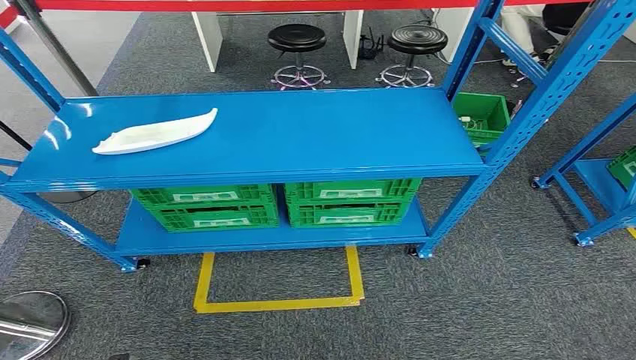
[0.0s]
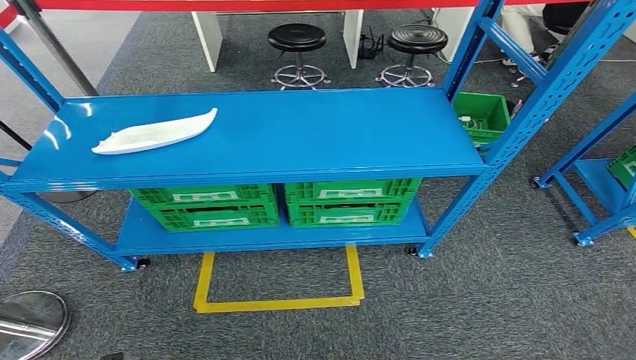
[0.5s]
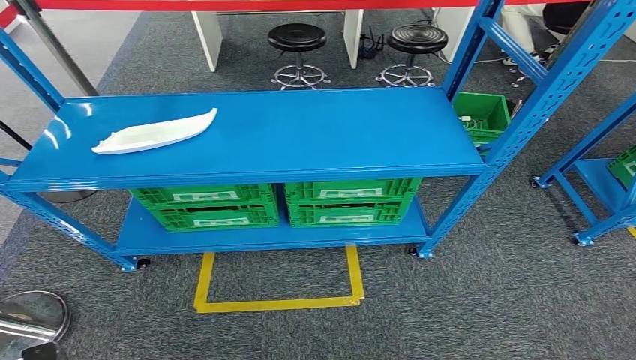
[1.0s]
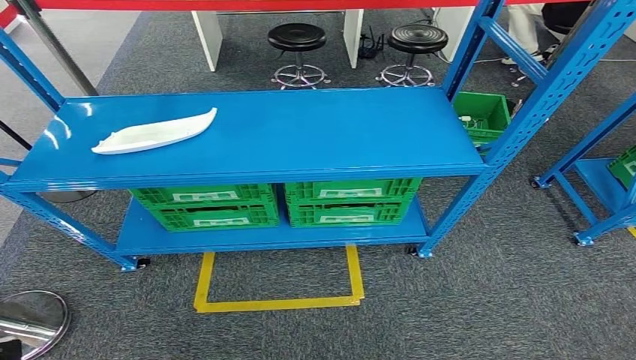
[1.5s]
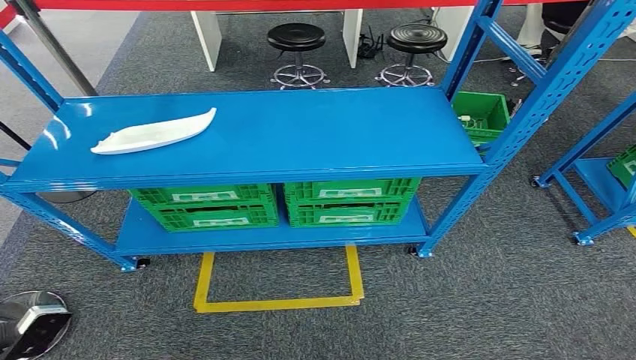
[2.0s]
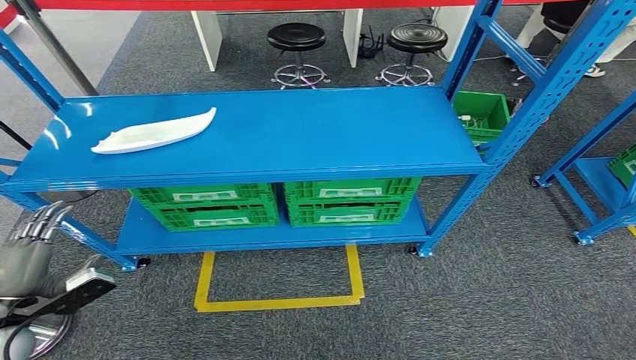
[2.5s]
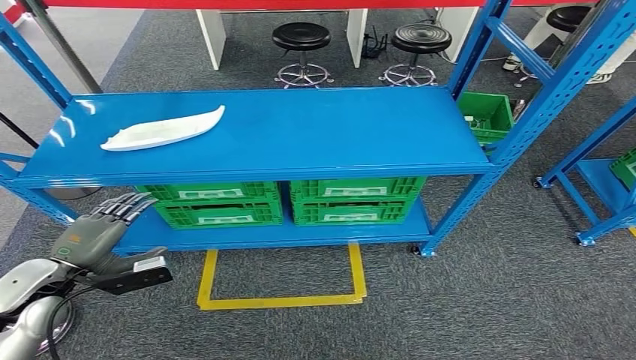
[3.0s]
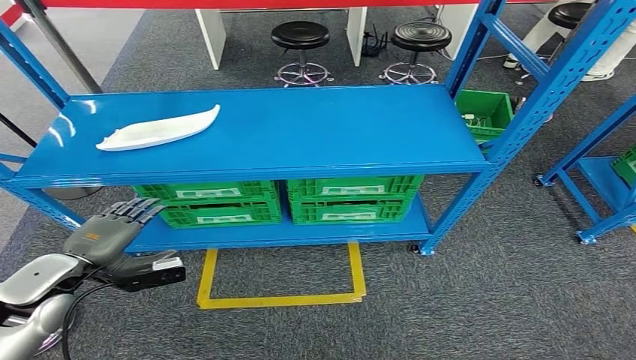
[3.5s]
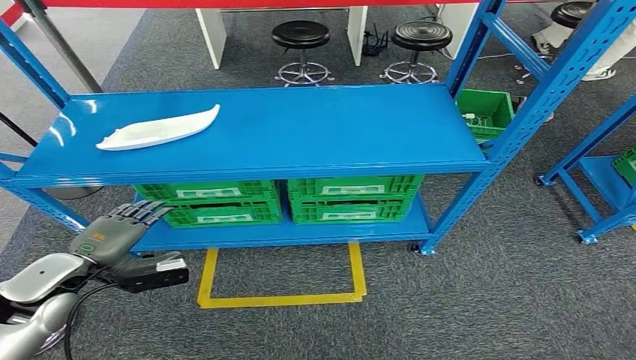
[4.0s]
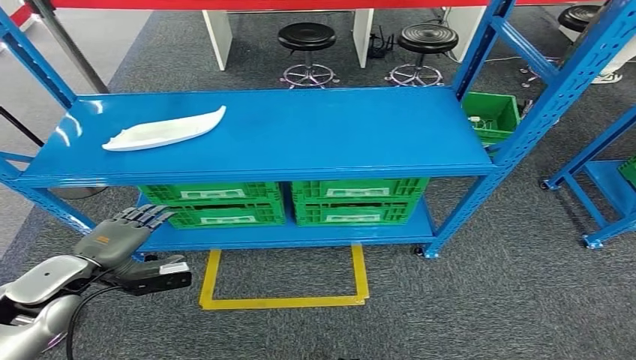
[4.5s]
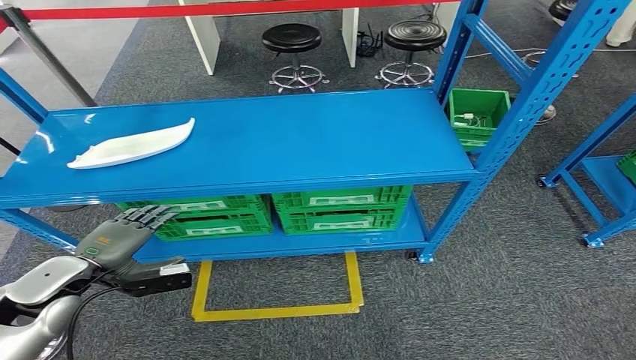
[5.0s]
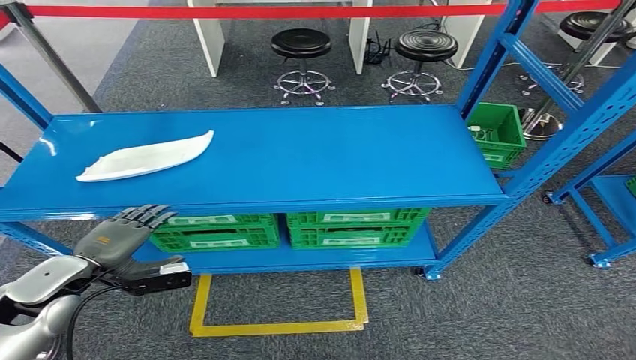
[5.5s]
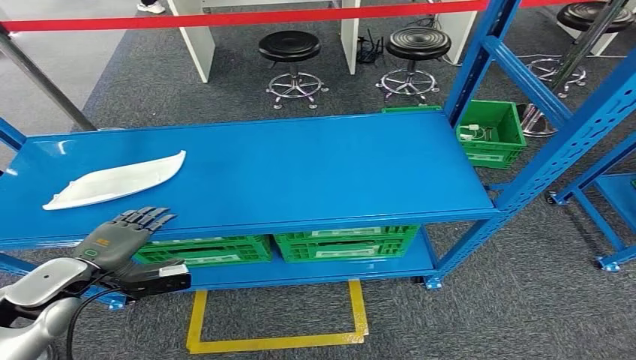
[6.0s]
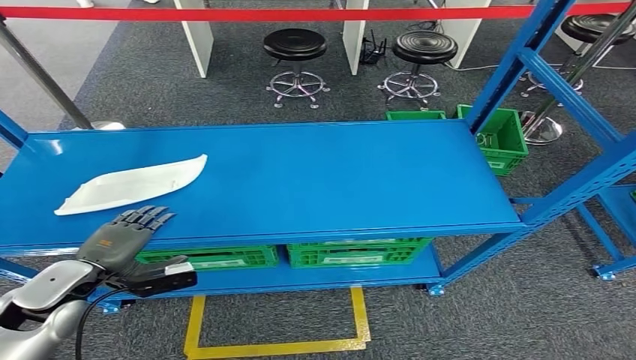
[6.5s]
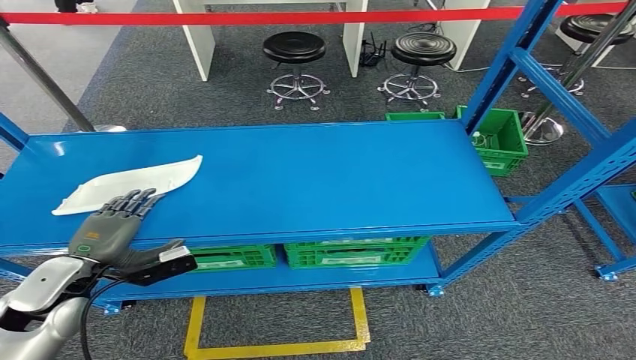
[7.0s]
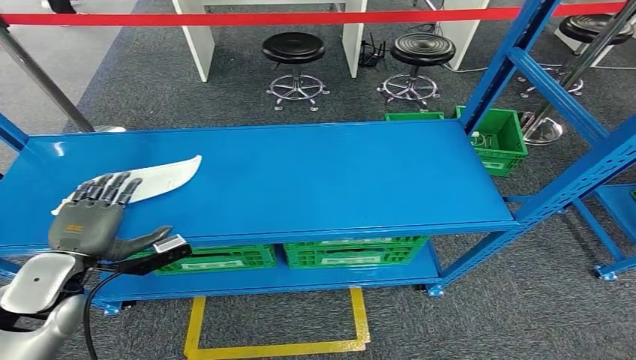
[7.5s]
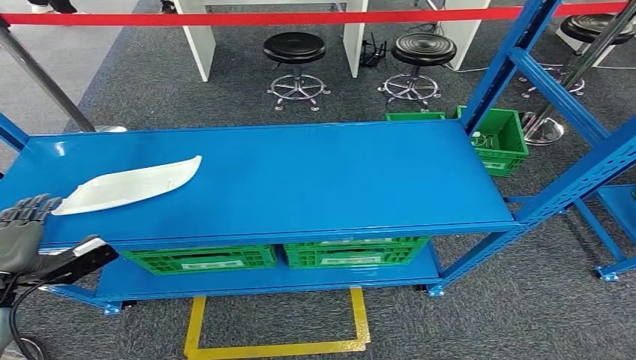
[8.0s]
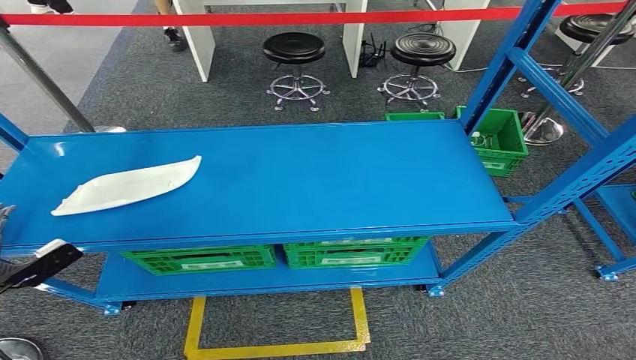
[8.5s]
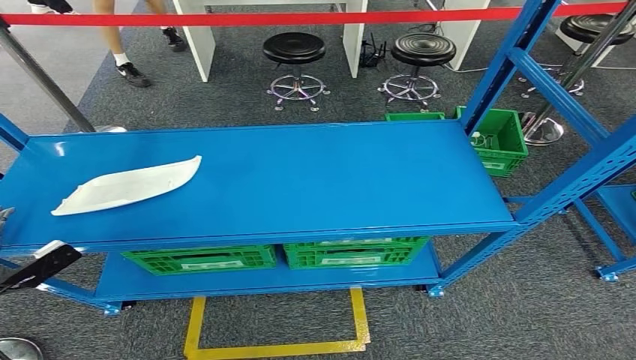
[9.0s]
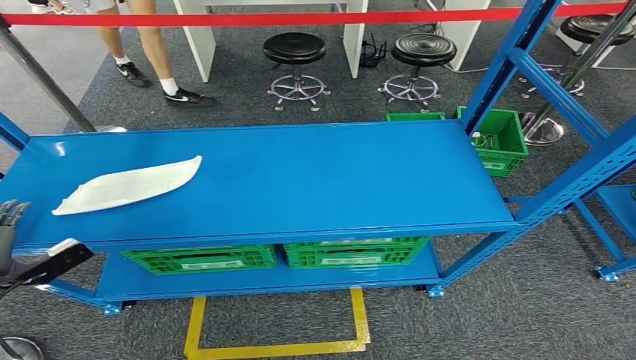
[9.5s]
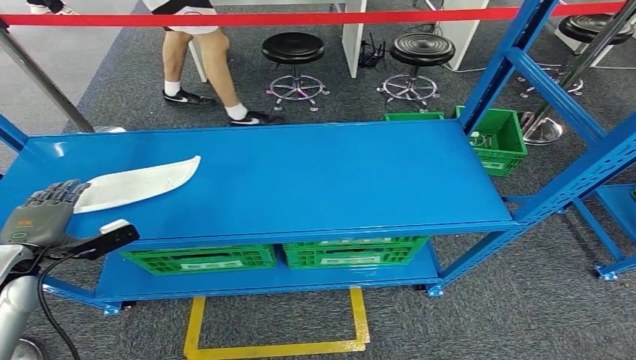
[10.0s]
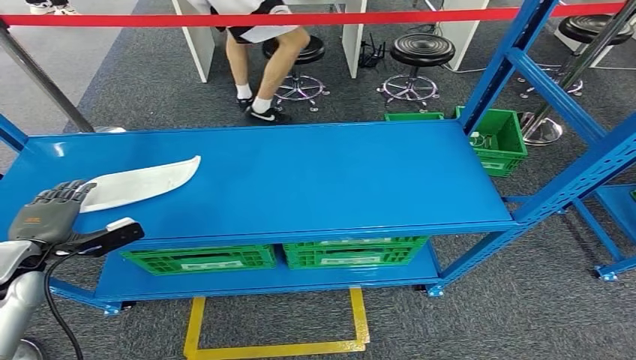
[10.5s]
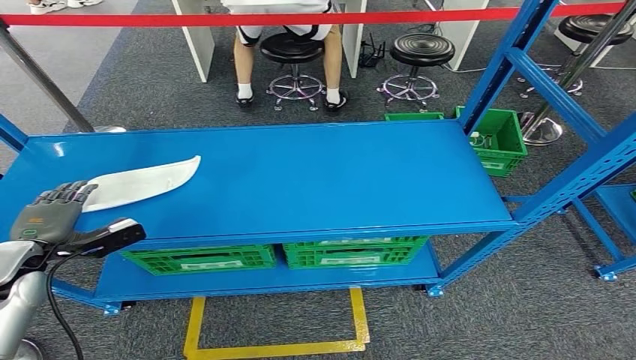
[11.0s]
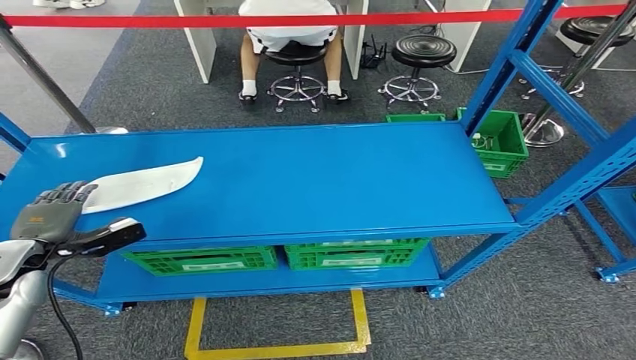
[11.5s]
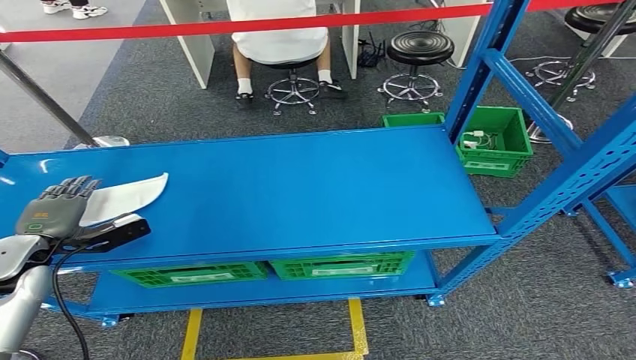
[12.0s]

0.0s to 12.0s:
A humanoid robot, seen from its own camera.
8.0s to 10.0s: The left hand travels forward by some 5 cm.

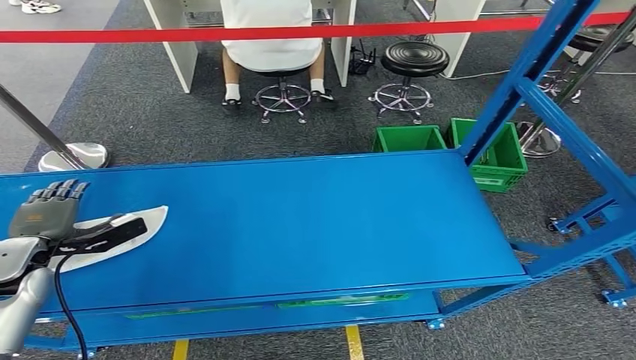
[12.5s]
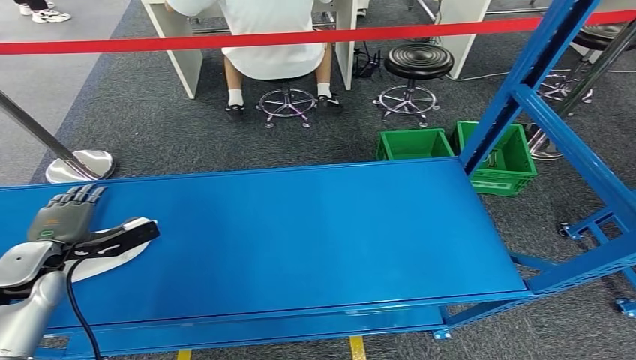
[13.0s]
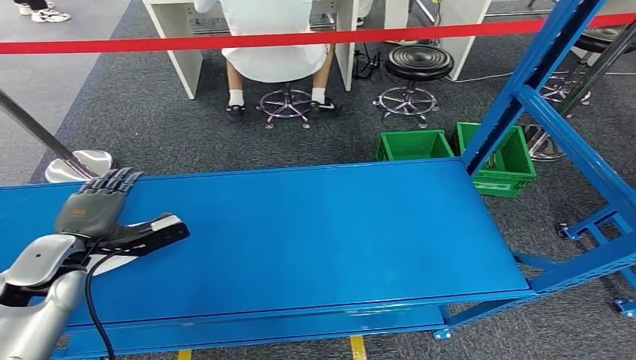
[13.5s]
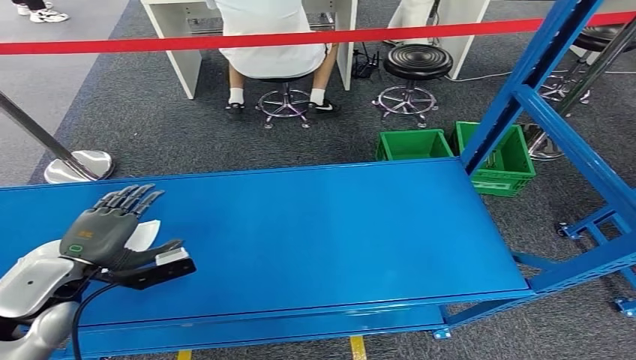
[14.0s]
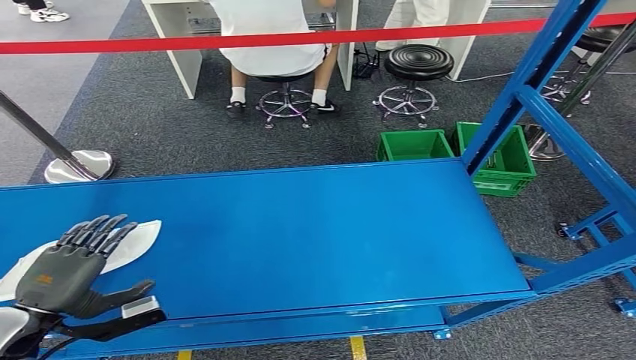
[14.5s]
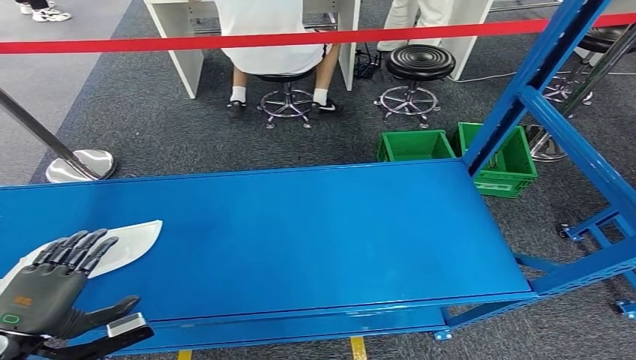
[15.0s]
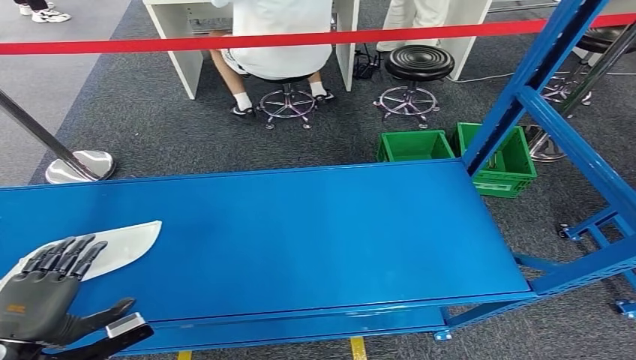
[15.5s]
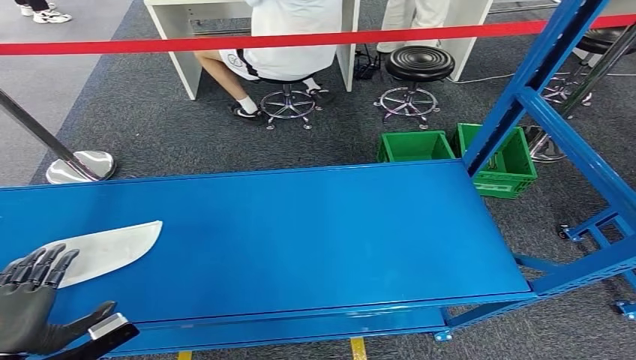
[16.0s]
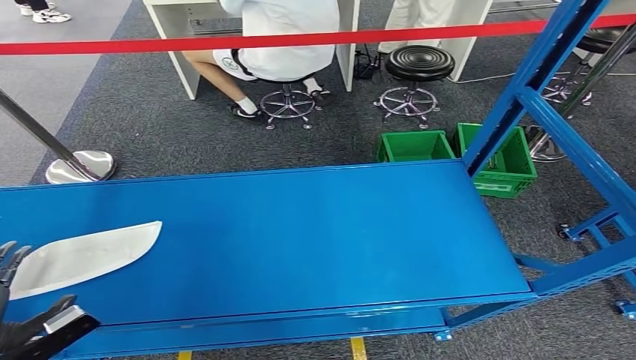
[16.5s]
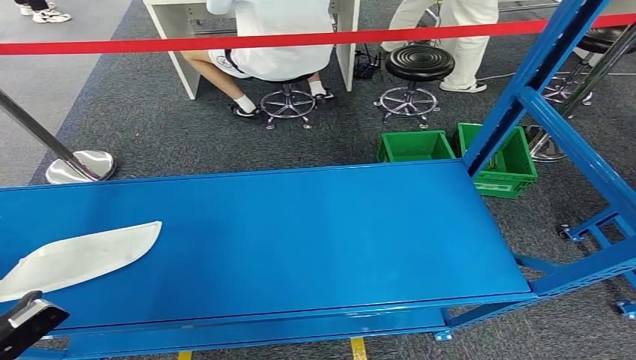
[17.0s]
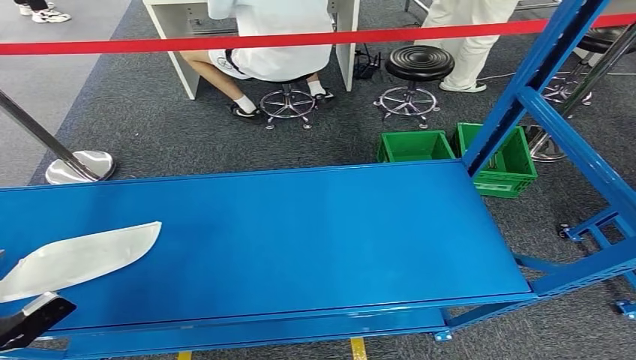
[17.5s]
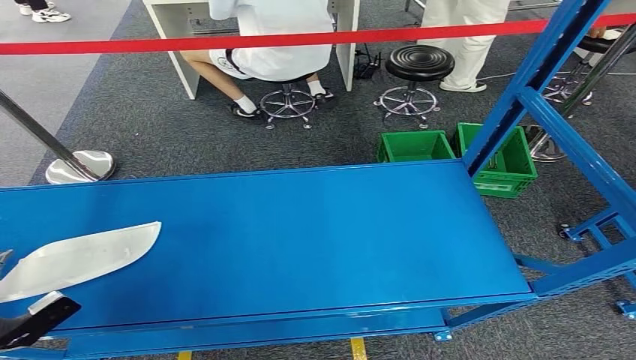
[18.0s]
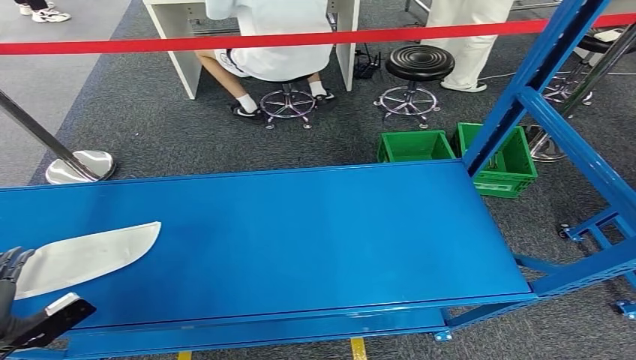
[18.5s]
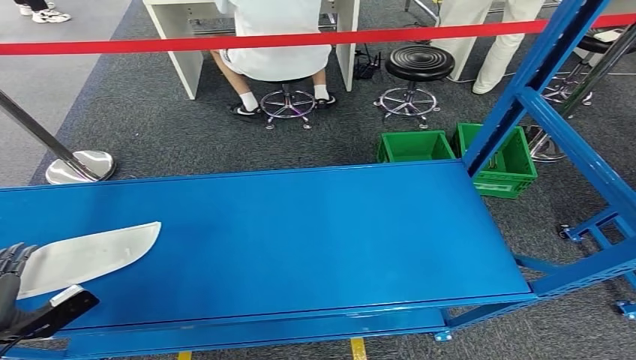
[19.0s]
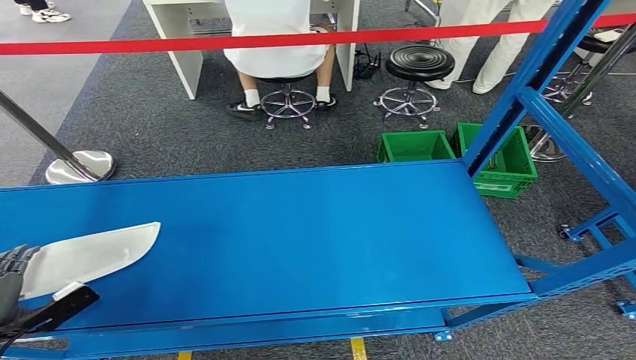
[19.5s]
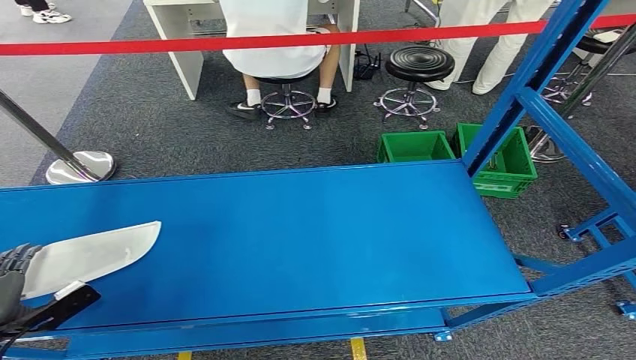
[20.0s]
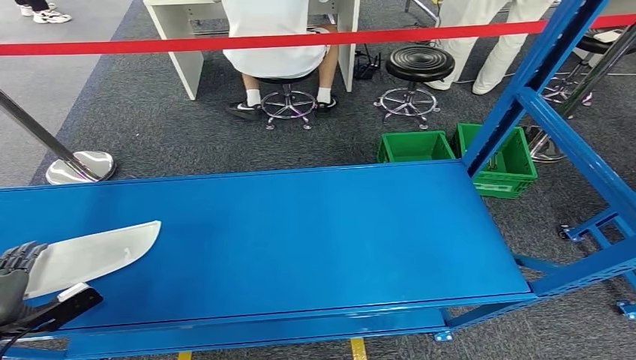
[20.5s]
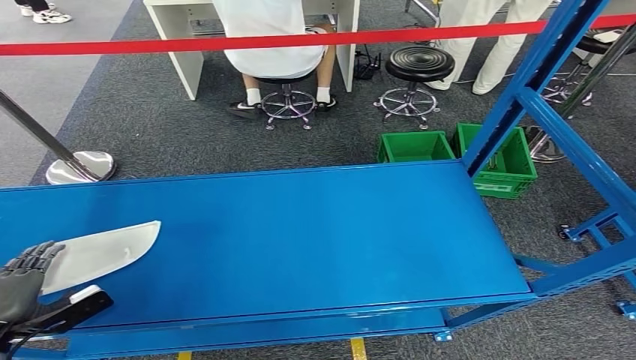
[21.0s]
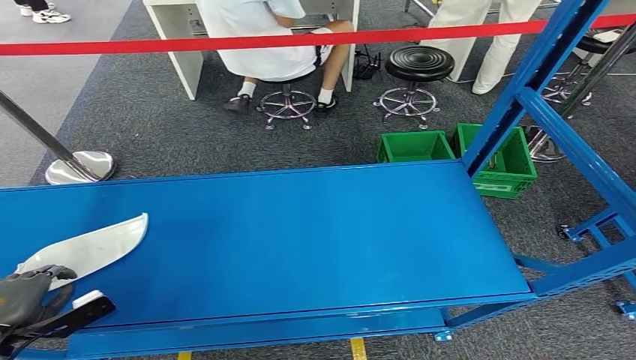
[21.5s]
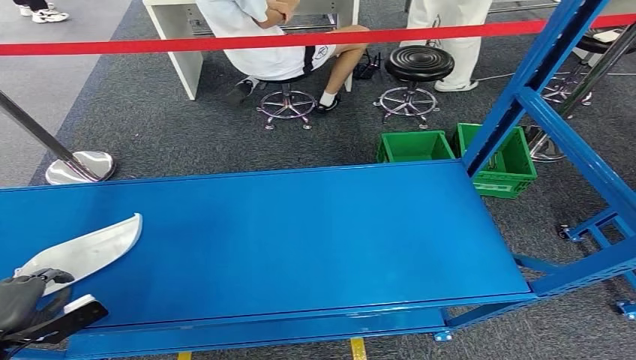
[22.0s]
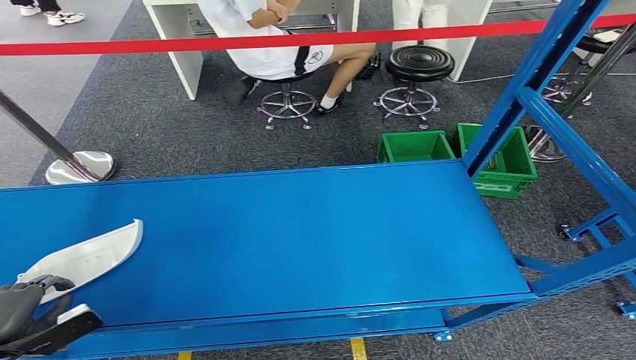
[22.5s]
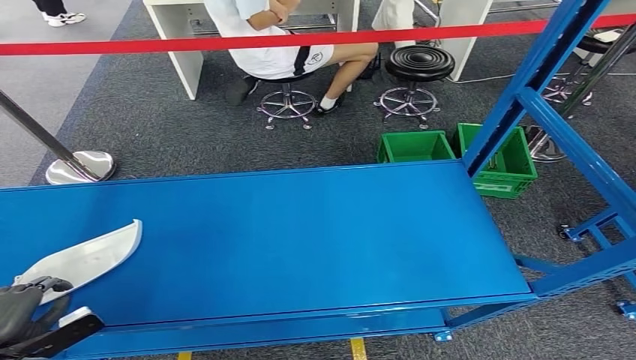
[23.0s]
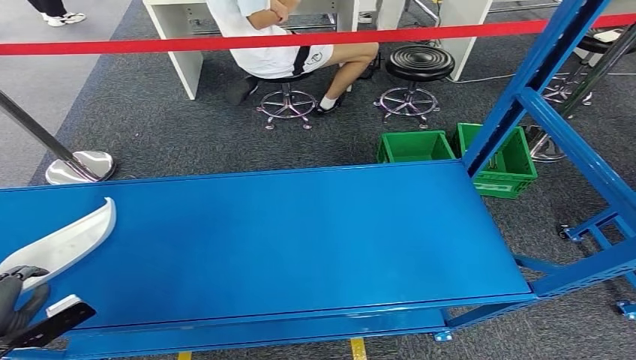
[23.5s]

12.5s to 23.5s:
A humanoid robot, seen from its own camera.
14.5s to 16.0s: The left hand heads backward, covering roughly 5 cm.
16.0s to 18.0s: The left hand moves to the left, approximately 10 cm.
18.0s to 23.5s: The hands move only a little.
